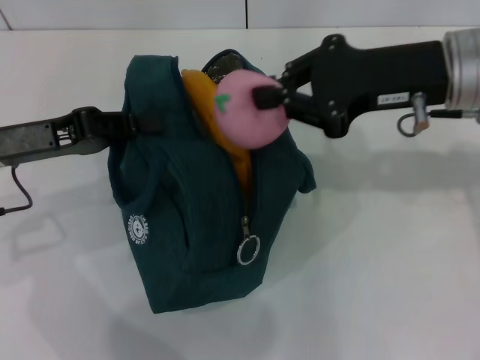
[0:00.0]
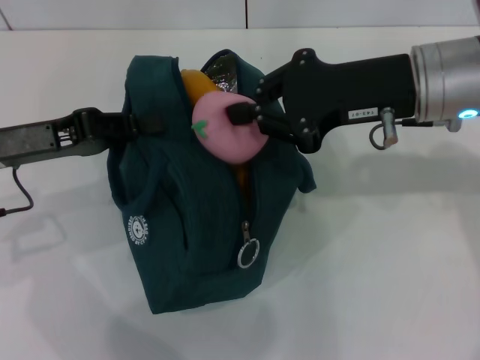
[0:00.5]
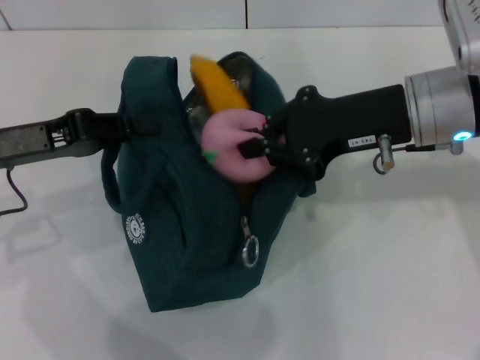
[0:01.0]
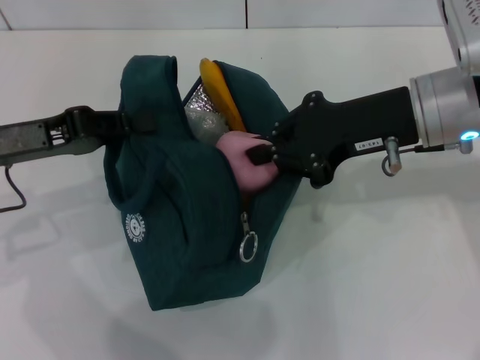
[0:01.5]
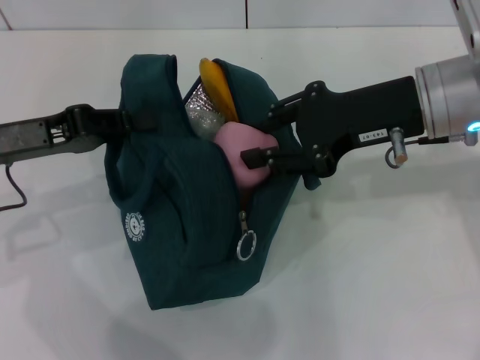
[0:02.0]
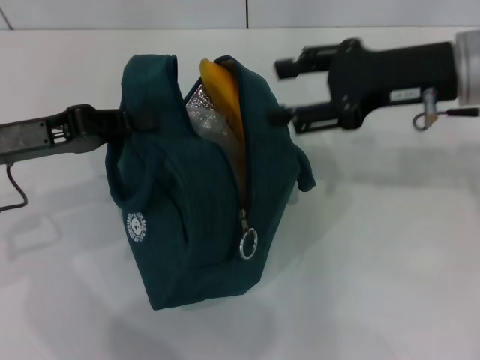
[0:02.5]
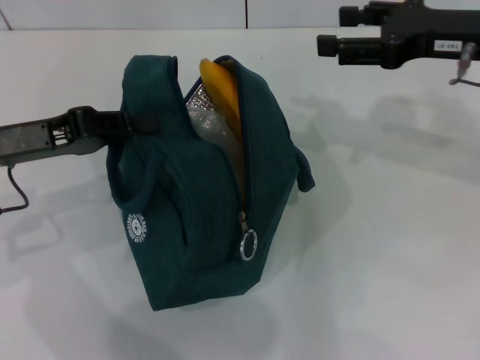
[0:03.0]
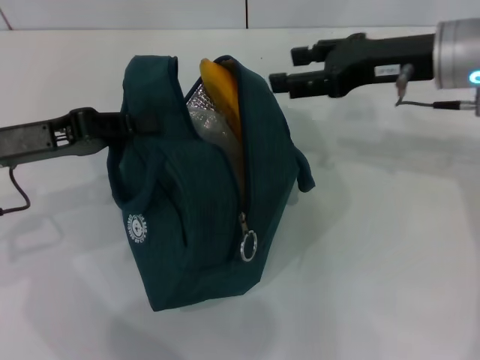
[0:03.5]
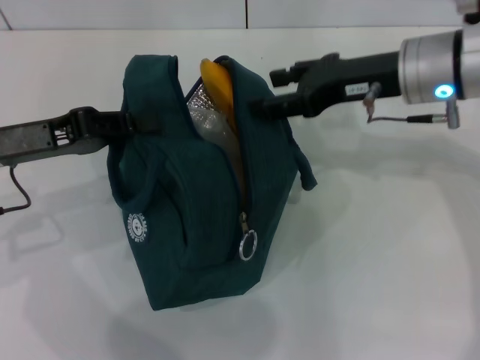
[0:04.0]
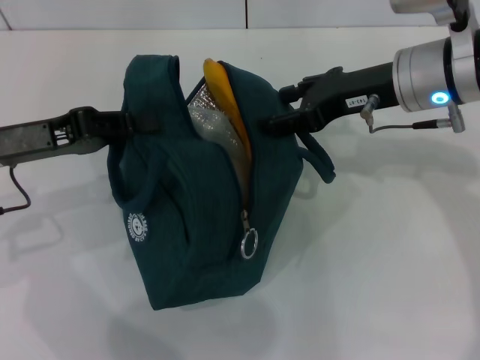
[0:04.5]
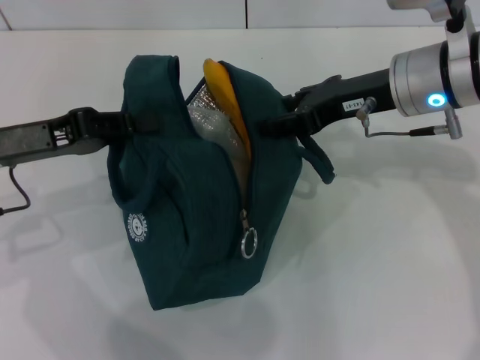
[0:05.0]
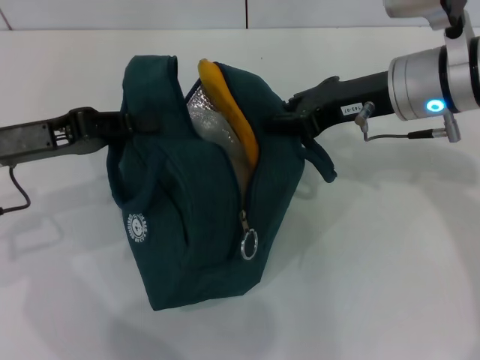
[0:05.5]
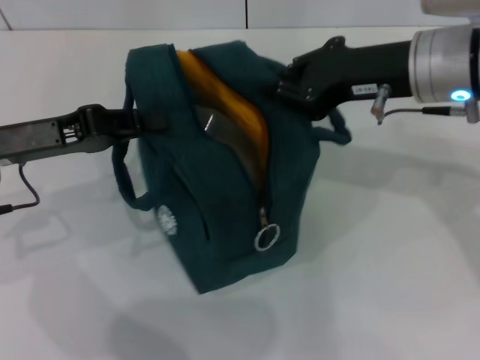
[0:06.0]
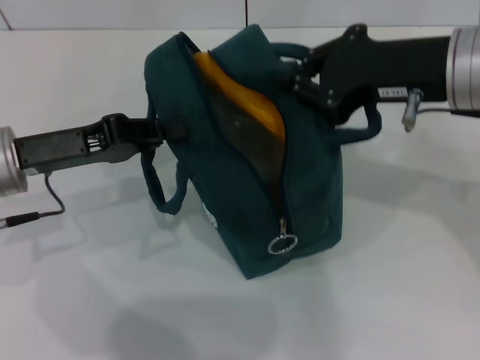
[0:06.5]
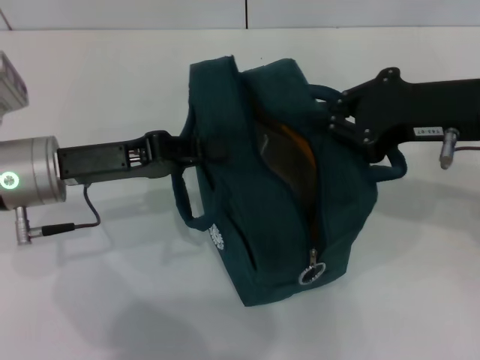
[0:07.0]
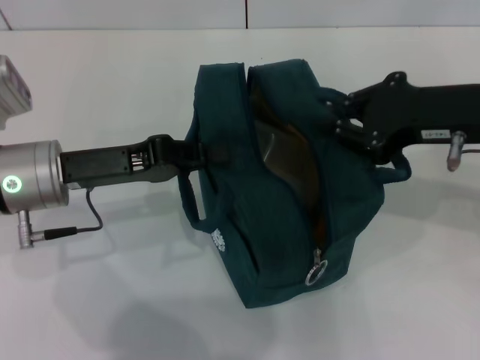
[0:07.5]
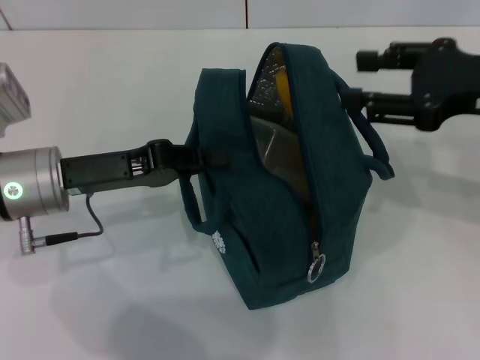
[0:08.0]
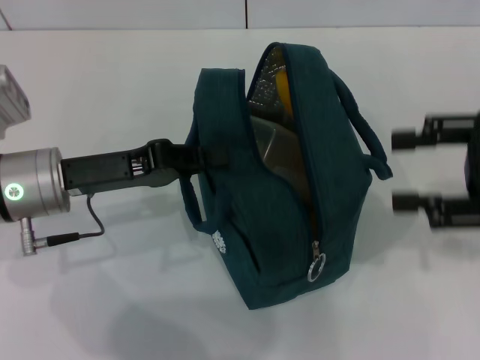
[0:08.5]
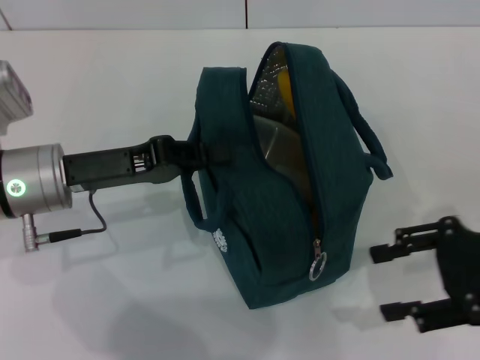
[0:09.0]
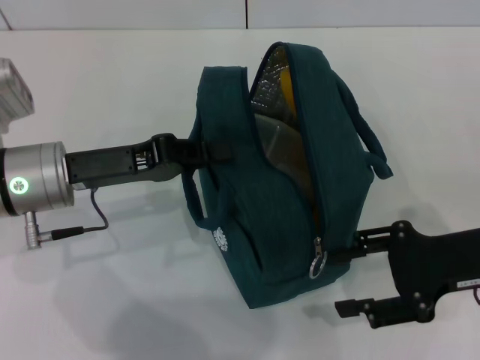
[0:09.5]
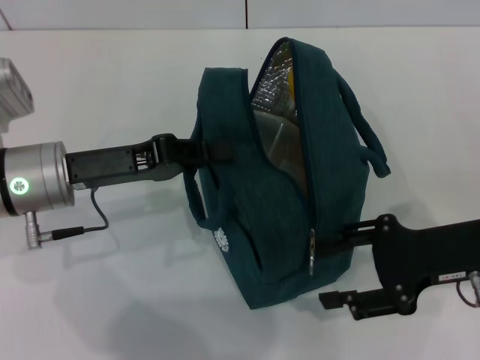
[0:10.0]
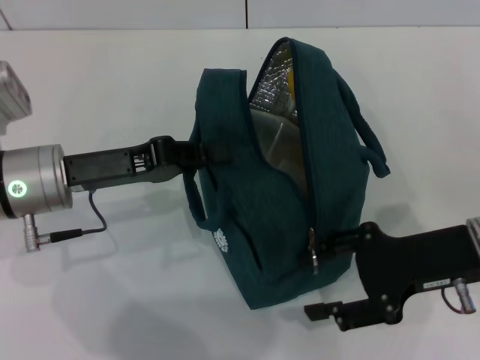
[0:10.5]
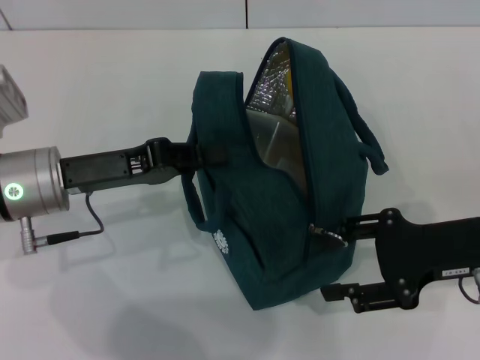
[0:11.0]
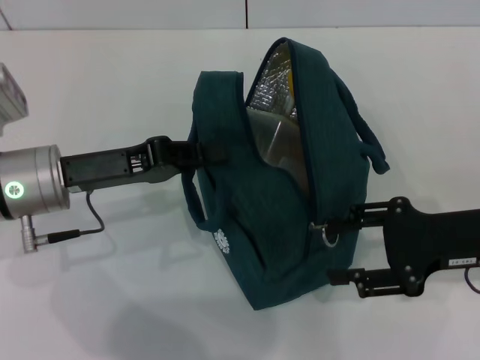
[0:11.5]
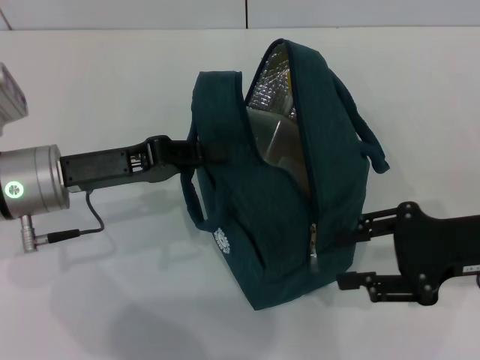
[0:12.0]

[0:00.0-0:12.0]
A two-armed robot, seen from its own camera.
Step, 0:00.0 to 0:02.0: Secure the lunch bag with your left hand.
Step, 0:02.5 to 0:07.5: Hold the lunch bag with your right hand.
0:00.0 to 0:02.0: The grippers stay close to where they were, moving slightly.
0:02.0 to 0:04.0: The right gripper opens up.
0:04.0 to 0:06.0: The right gripper closes up.
0:06.0 to 0:08.0: The left gripper changes place by roughly 5 cm. The right gripper goes approximately 10 cm to the right.
0:08.0 to 0:10.0: The right gripper heads downward, covering some 10 cm.
0:10.0 to 0:12.0: The grippers stay close to where they were, moving slightly.

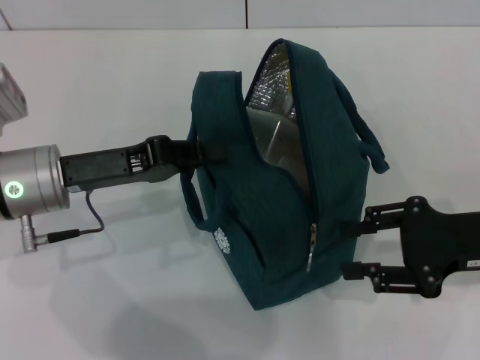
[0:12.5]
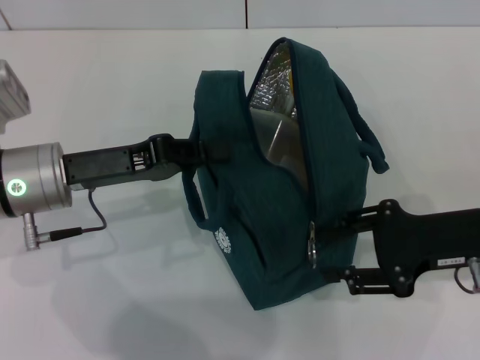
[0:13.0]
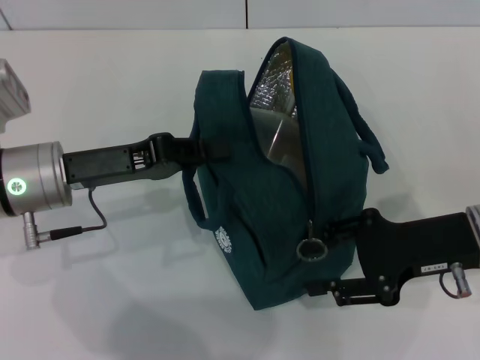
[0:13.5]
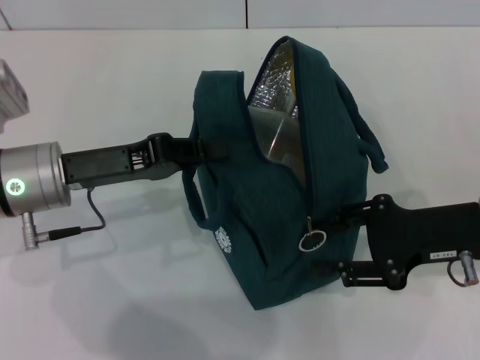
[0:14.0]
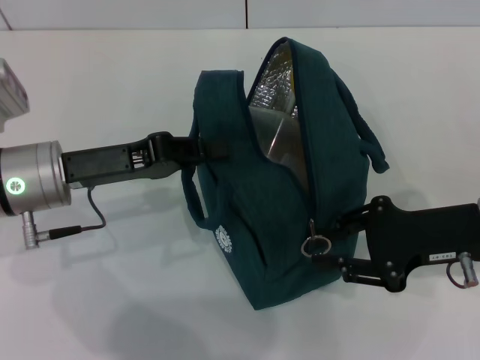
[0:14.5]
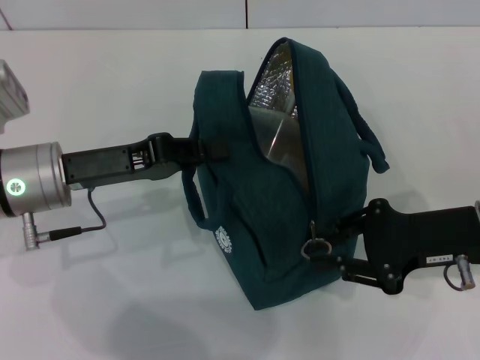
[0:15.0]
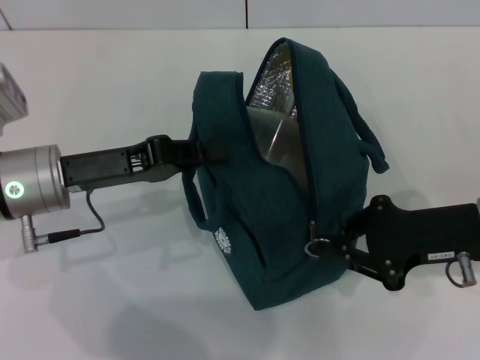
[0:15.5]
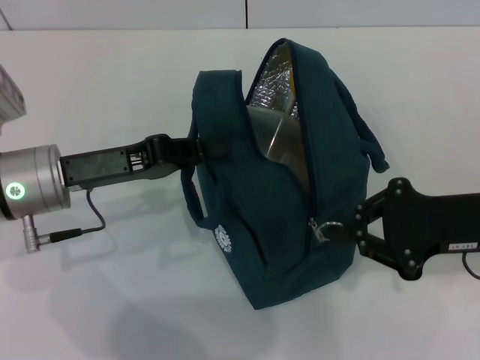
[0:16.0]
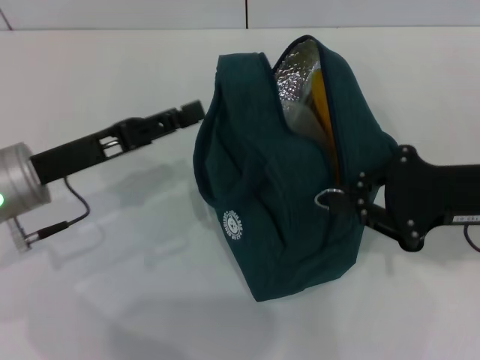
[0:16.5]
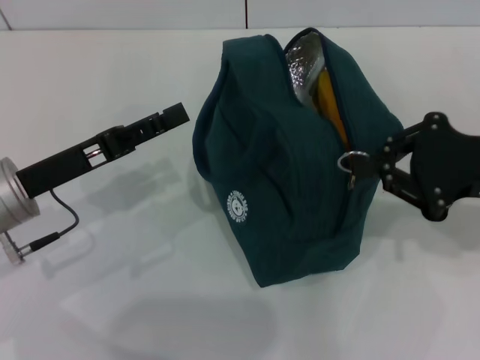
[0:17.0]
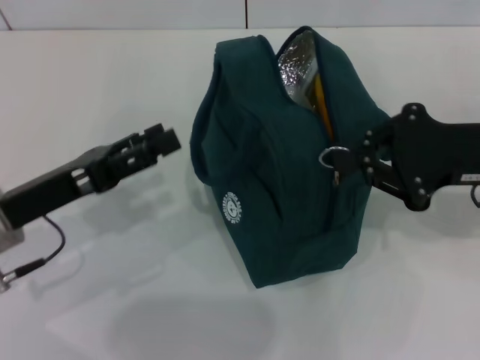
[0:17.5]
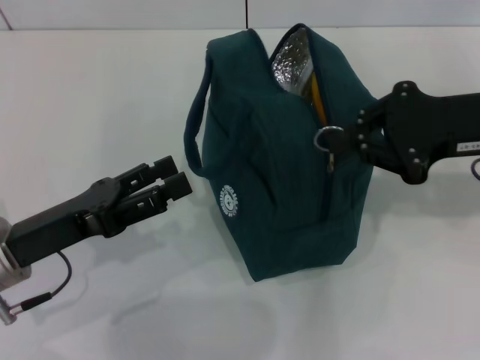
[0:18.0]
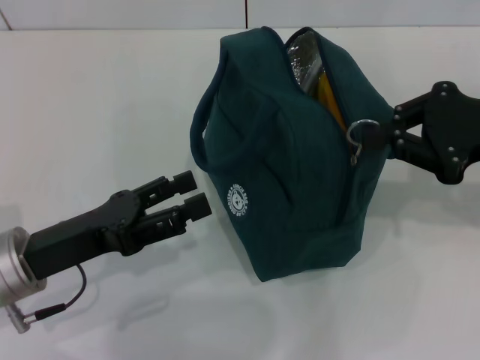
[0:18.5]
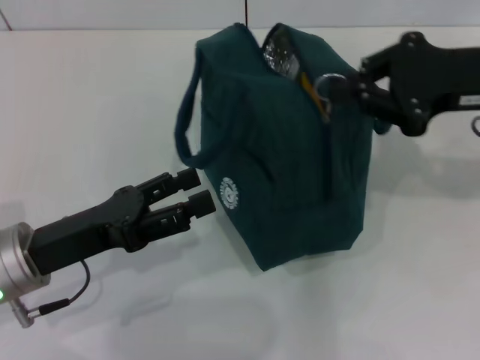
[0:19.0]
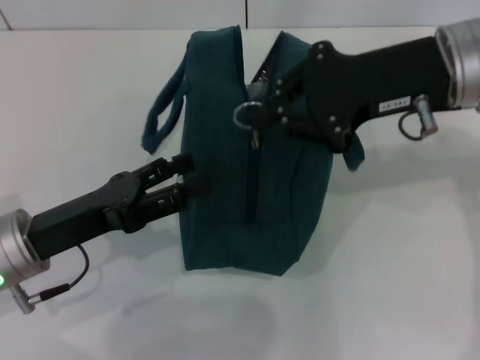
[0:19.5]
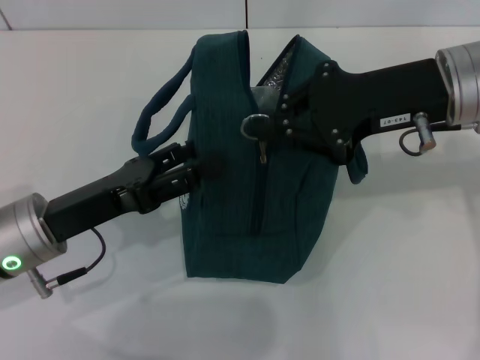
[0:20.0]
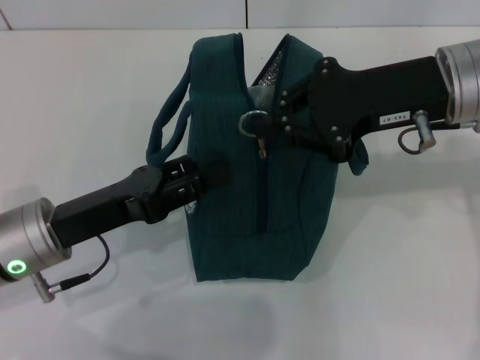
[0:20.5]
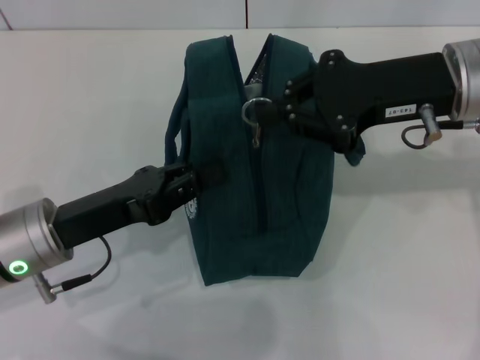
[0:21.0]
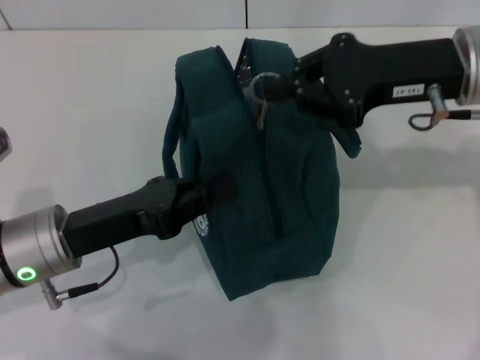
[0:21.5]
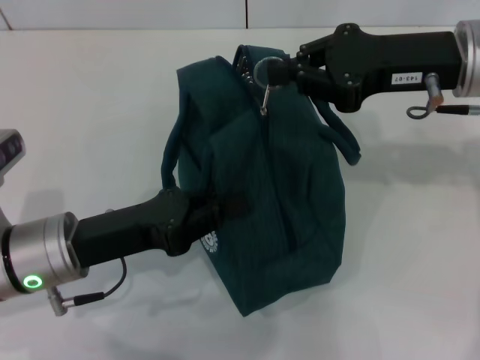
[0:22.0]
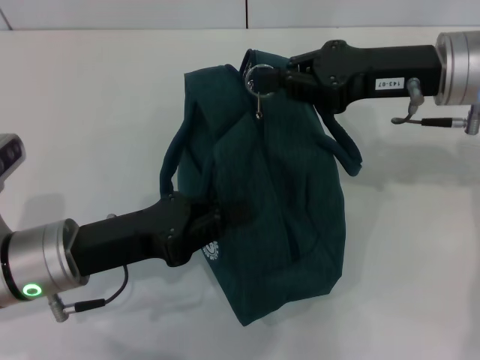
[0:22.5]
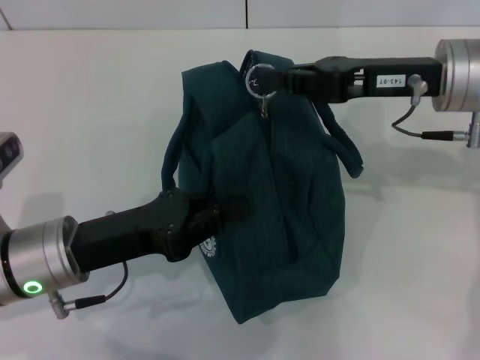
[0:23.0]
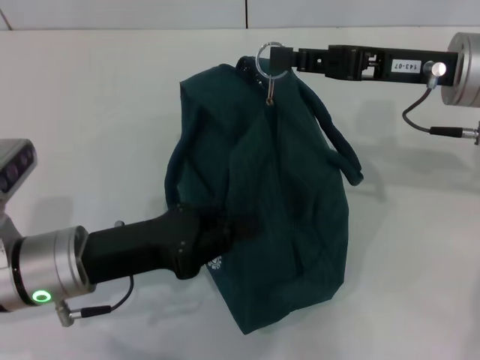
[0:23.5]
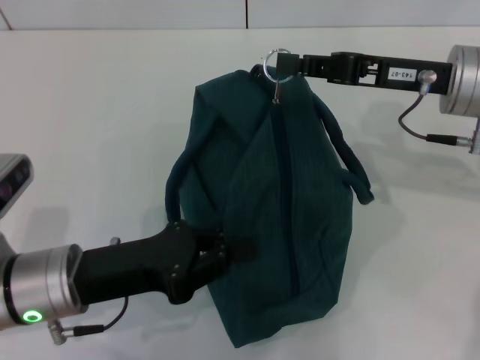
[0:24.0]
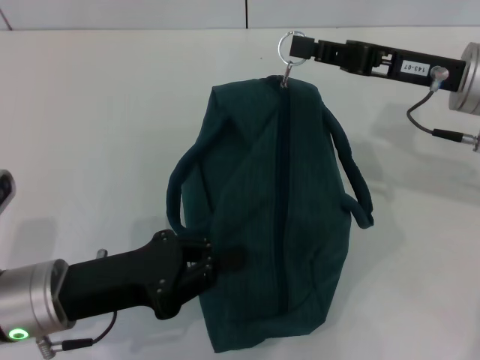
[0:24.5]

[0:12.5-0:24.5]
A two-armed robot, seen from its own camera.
0:12.5 to 0:14.5: There are only small adjustments of the grippers.
0:14.5 to 0:16.5: The right gripper closes up; the left gripper opens.
0:16.5 to 0:18.5: The left gripper travels backward by some 5 cm, and opens, while the right gripper moves about 5 cm.
0:18.5 to 0:20.5: The right gripper shifts about 10 cm to the left.
0:20.5 to 0:22.5: The left gripper closes its fingers.

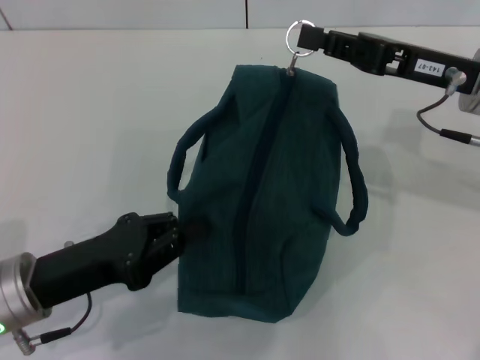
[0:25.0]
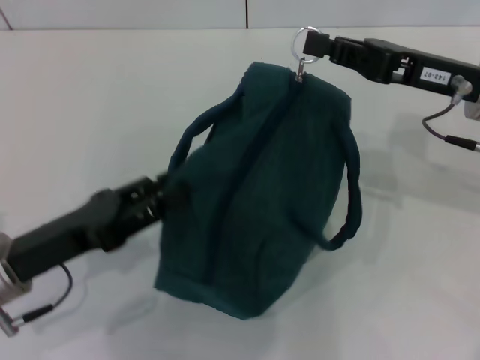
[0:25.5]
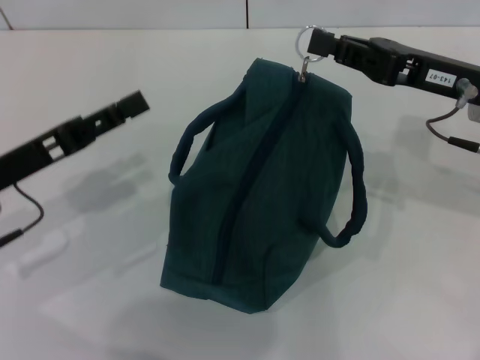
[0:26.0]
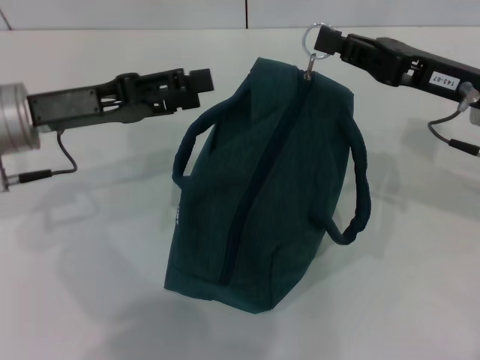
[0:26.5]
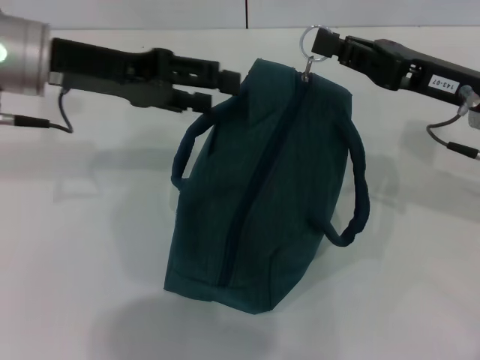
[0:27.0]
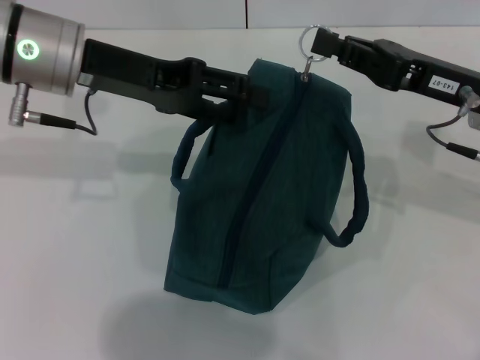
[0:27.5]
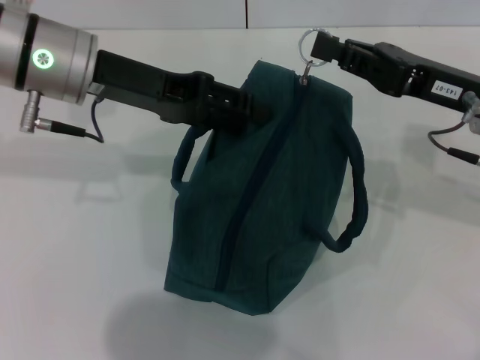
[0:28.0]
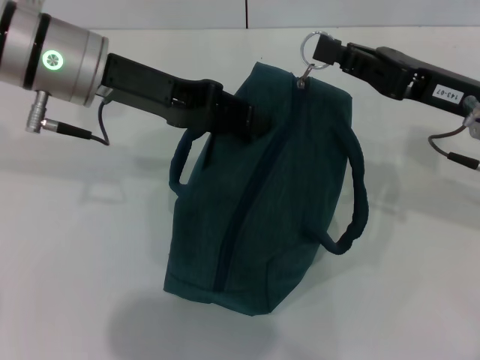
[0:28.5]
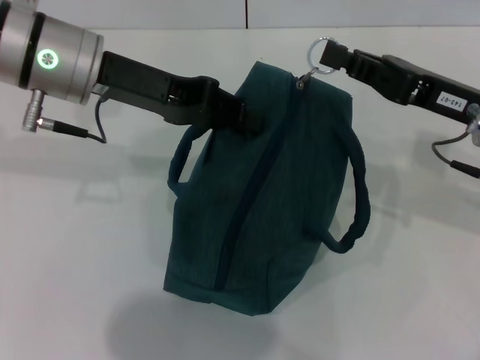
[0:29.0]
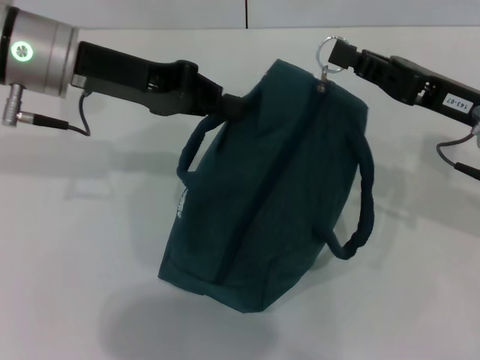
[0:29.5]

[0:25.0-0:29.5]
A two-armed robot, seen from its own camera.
0:25.0 to 0:27.0: The left gripper moves forward and upward, approximately 20 cm, and opens up.
0:27.0 to 0:29.5: The left gripper closes.
